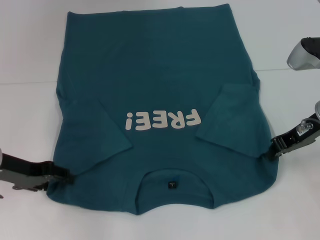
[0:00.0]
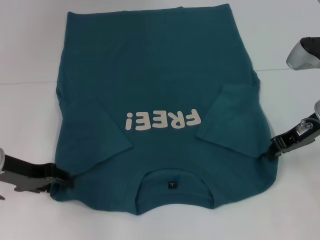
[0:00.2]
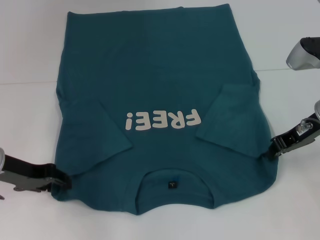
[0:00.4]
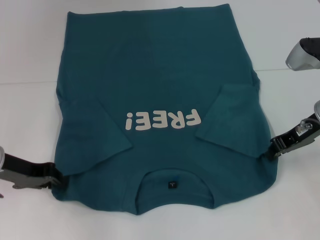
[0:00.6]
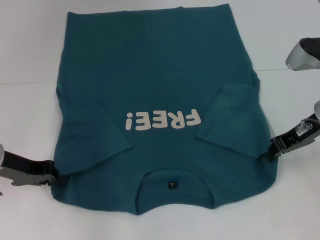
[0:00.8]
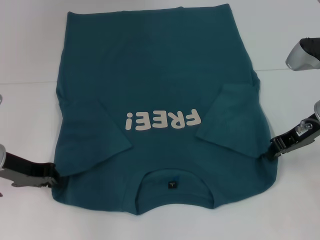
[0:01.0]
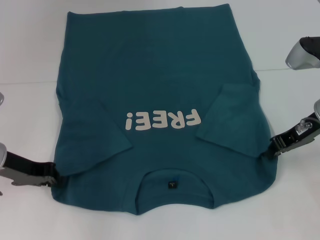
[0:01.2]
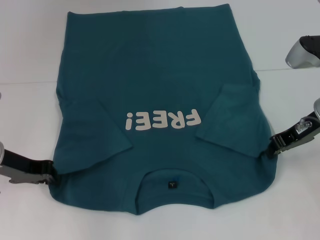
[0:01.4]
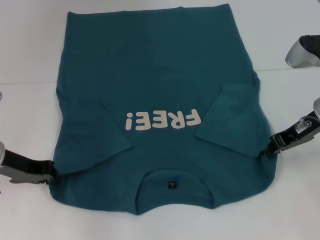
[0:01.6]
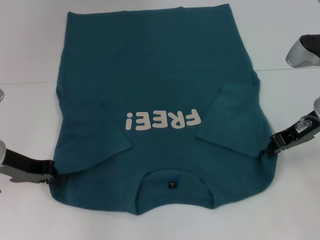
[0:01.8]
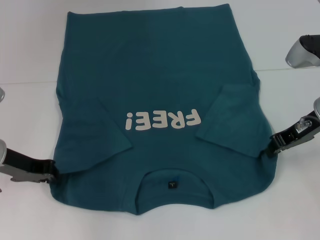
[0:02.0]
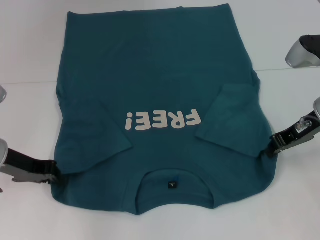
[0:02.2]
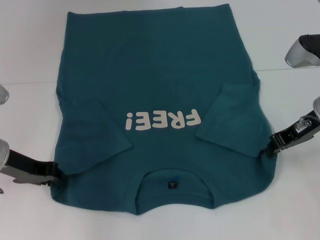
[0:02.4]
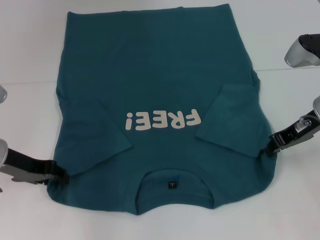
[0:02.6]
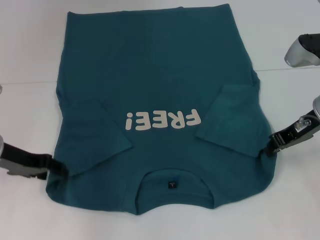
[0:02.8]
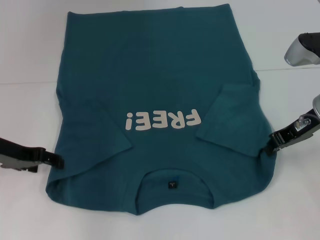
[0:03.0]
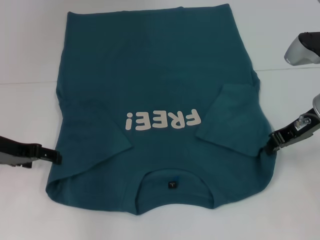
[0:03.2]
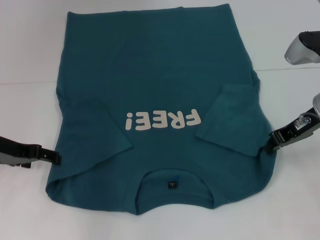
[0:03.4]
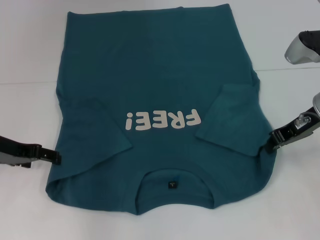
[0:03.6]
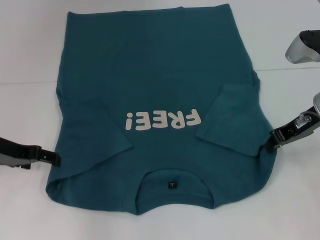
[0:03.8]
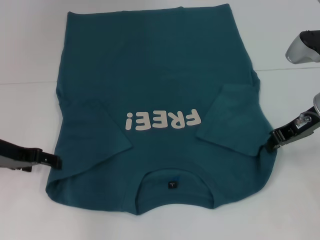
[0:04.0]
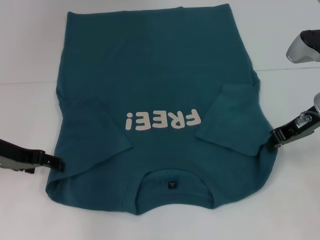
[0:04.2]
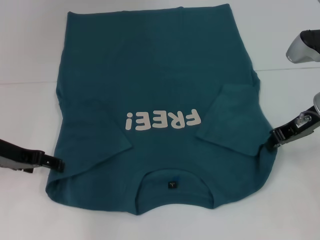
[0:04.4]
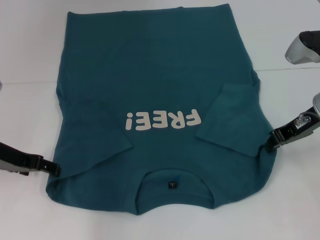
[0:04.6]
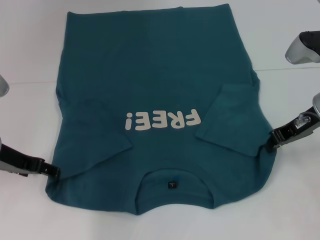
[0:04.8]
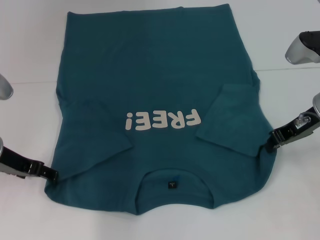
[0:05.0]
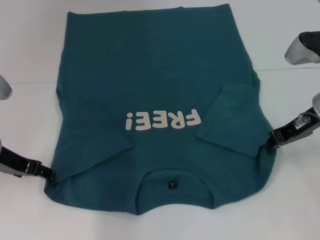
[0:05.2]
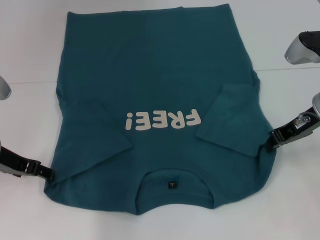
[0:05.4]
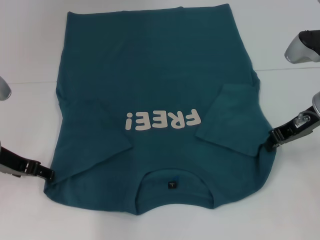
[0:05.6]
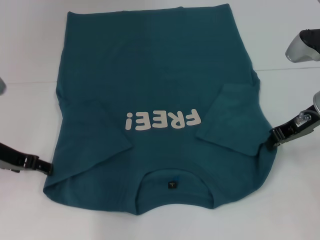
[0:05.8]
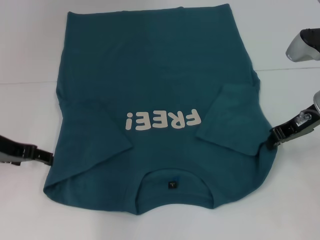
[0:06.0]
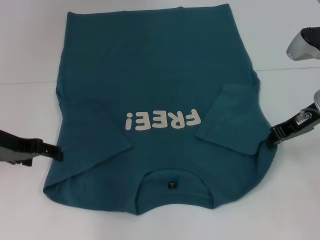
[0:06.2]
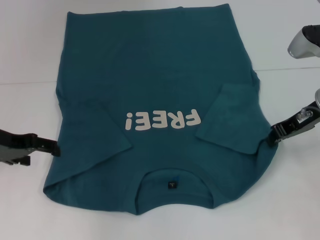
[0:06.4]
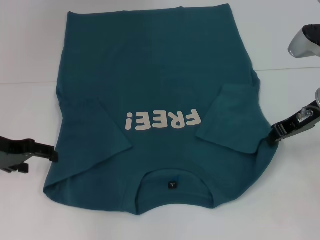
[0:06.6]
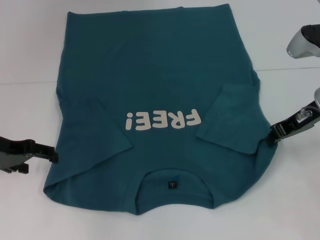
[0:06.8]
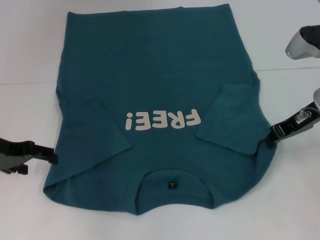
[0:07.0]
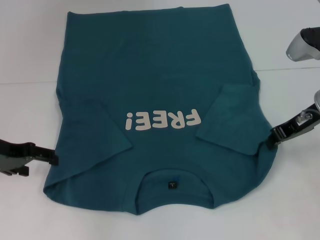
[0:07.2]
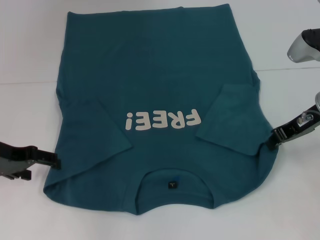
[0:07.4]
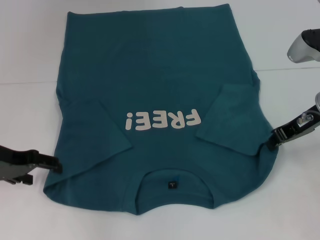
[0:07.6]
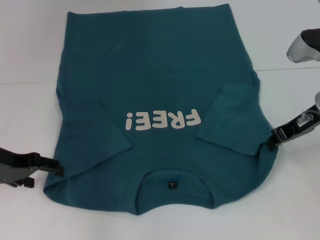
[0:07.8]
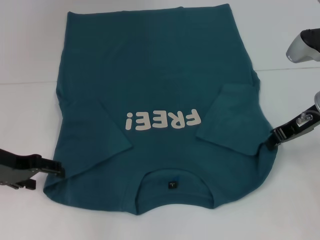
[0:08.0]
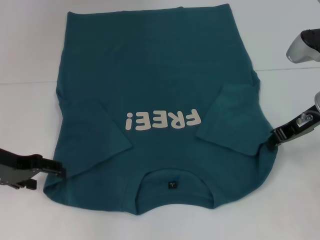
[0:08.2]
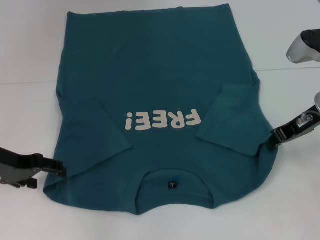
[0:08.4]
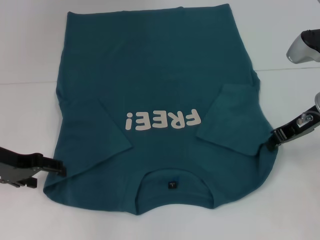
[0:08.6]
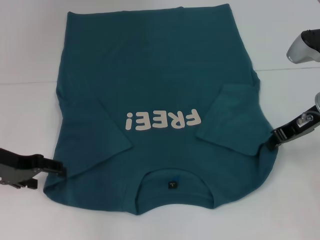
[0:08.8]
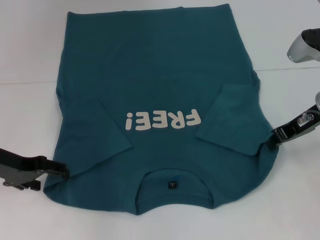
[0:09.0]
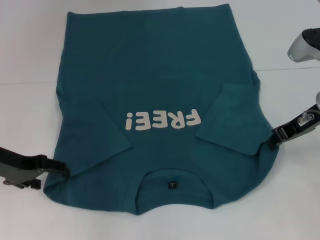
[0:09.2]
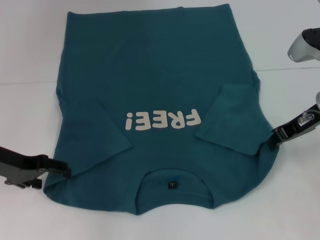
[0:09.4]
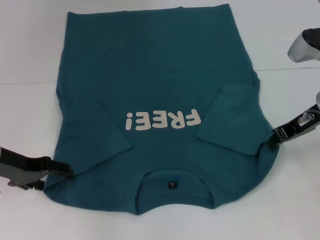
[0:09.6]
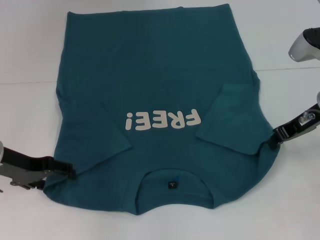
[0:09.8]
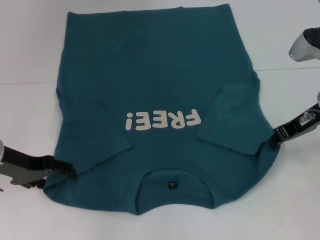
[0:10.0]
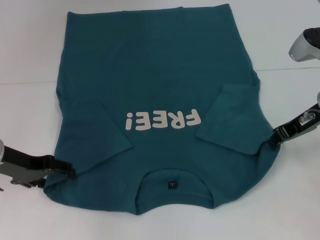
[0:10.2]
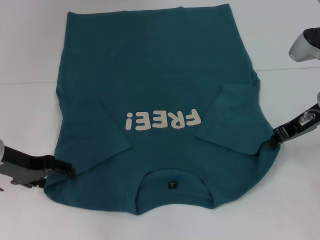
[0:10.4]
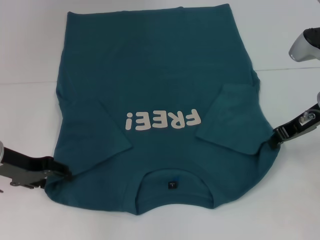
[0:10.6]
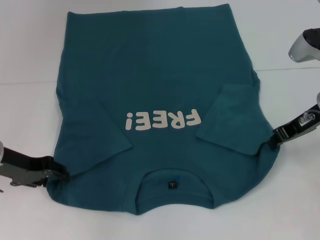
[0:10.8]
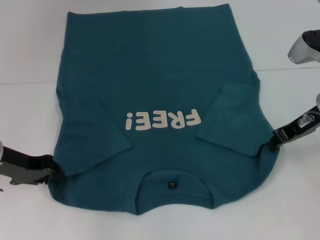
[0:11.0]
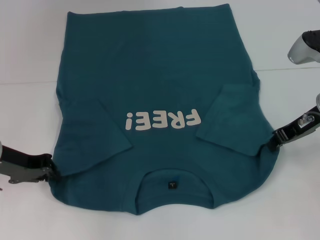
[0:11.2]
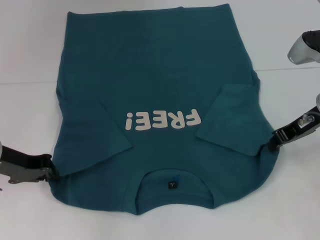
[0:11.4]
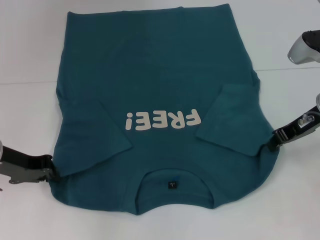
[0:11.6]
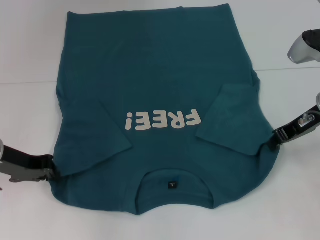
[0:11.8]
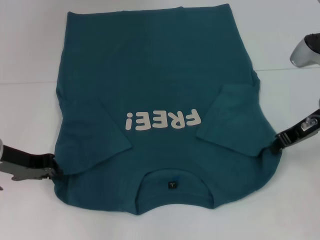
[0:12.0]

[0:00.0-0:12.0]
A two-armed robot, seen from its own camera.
0:00.0 to 0:01.6: The left gripper closes up.
0:01.6 to 0:03.0: The left gripper opens up.
0:03.0 to 0:04.4: The two grippers keep their place.
0:04.4 to 0:06.0: The grippers move only a little.
0:07.6 to 0:09.0: The grippers move only a little.
0:09.0 to 0:10.4: The two grippers keep their place.
0:10.4 to 0:12.0: The left gripper closes up.

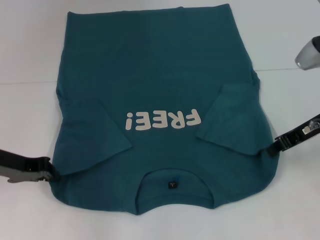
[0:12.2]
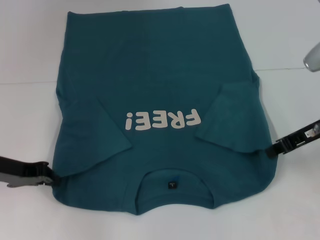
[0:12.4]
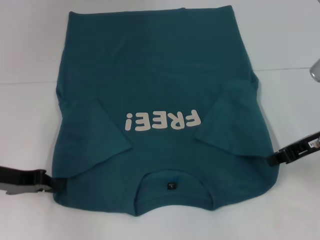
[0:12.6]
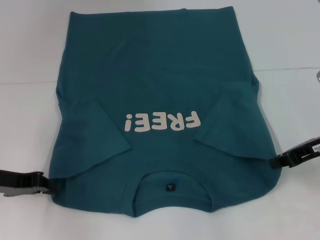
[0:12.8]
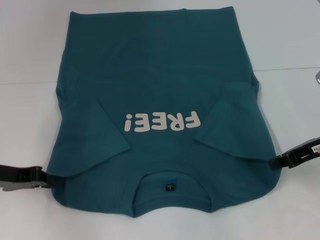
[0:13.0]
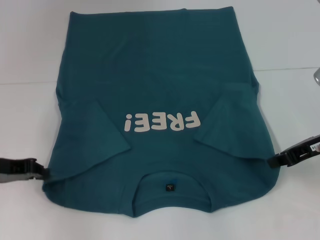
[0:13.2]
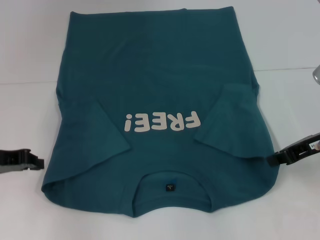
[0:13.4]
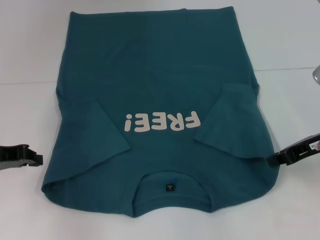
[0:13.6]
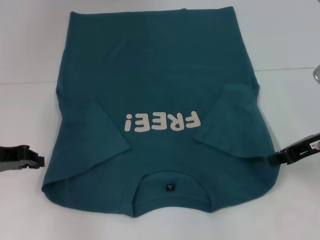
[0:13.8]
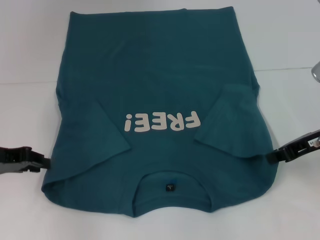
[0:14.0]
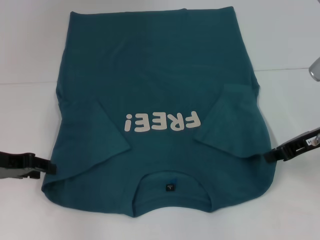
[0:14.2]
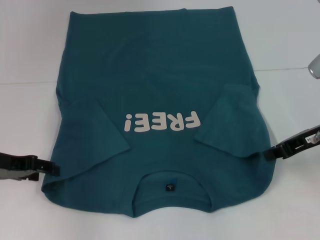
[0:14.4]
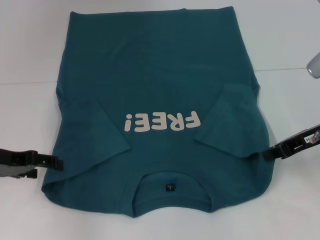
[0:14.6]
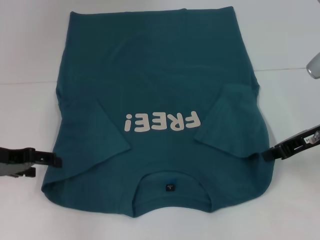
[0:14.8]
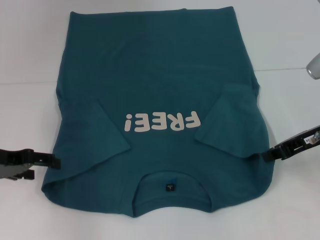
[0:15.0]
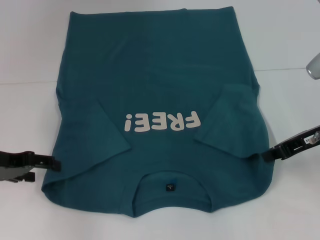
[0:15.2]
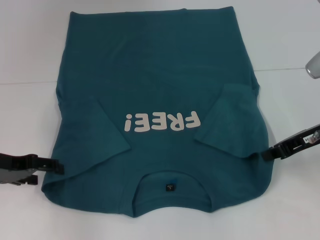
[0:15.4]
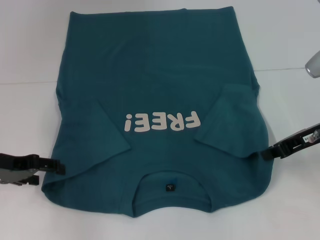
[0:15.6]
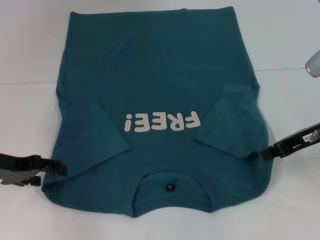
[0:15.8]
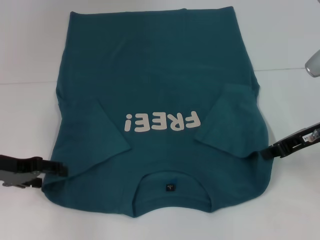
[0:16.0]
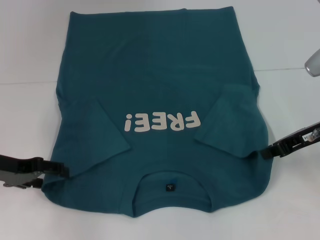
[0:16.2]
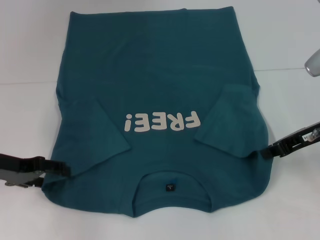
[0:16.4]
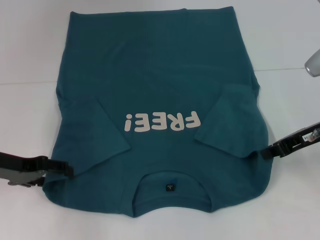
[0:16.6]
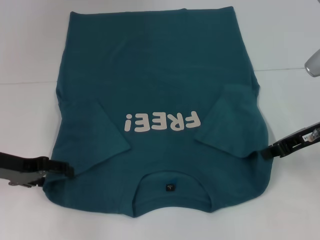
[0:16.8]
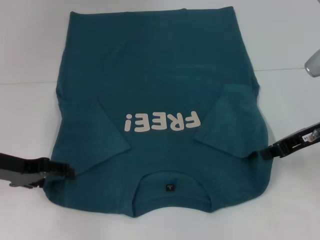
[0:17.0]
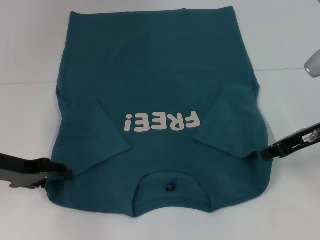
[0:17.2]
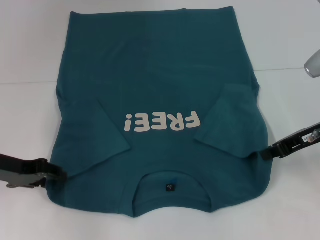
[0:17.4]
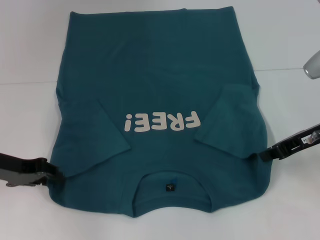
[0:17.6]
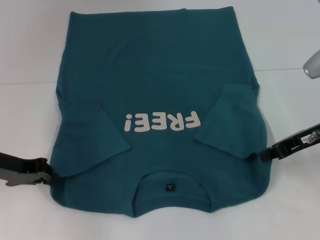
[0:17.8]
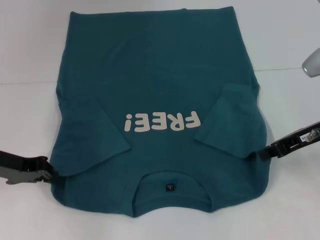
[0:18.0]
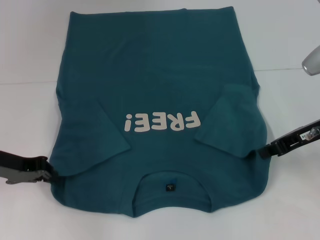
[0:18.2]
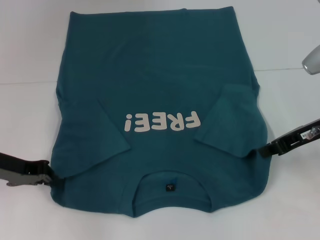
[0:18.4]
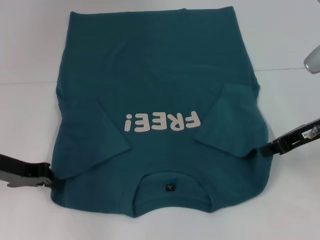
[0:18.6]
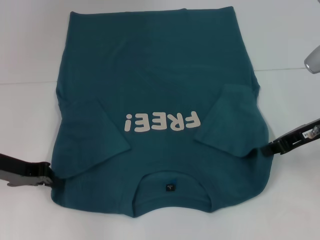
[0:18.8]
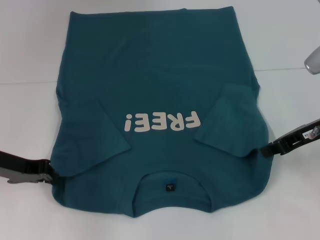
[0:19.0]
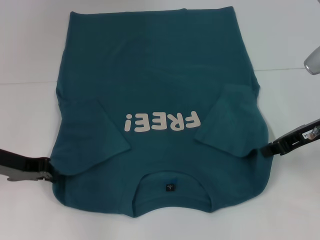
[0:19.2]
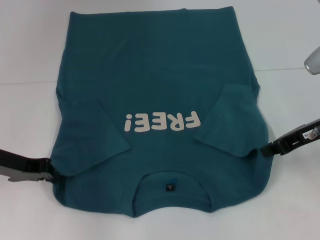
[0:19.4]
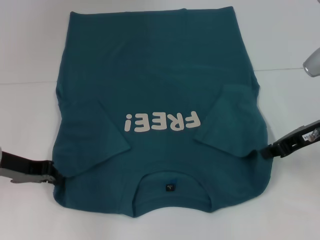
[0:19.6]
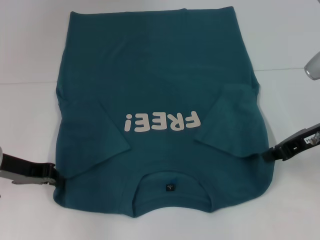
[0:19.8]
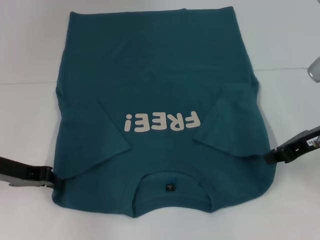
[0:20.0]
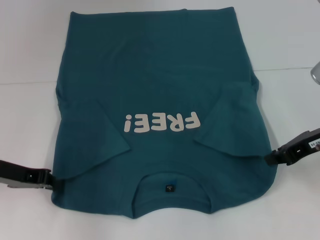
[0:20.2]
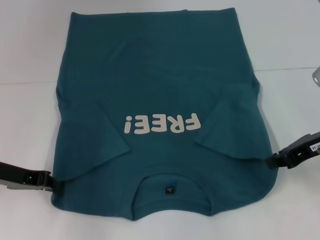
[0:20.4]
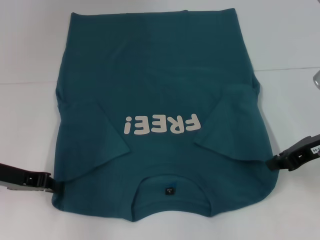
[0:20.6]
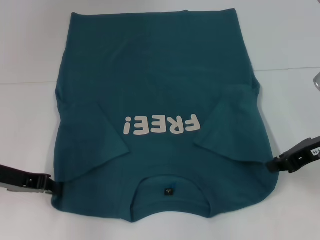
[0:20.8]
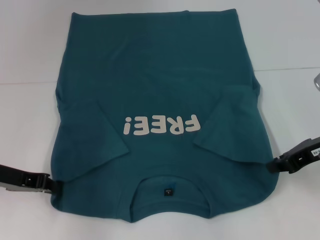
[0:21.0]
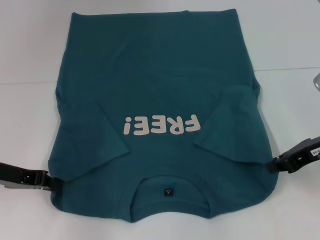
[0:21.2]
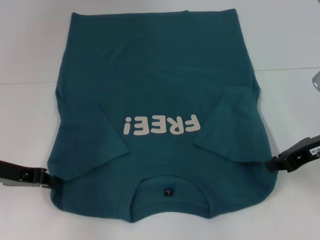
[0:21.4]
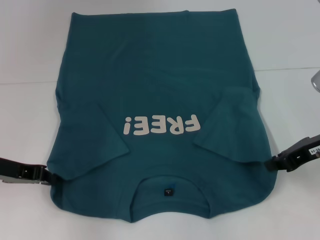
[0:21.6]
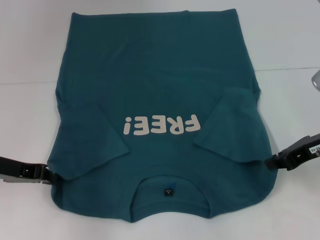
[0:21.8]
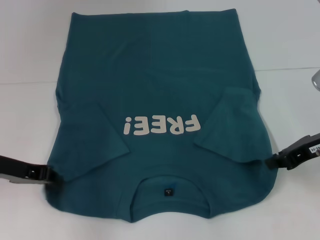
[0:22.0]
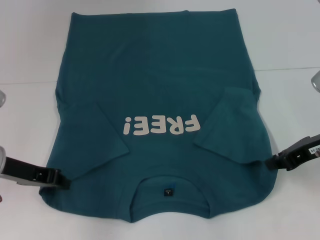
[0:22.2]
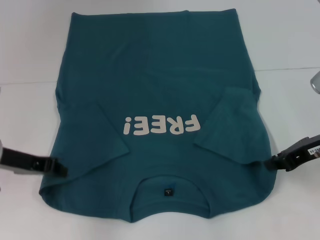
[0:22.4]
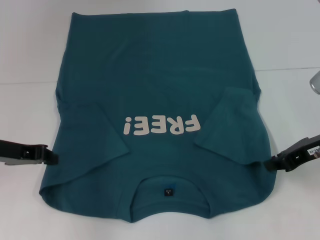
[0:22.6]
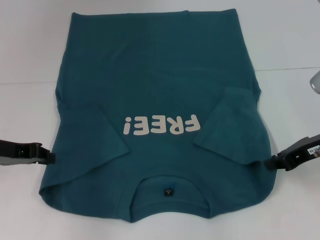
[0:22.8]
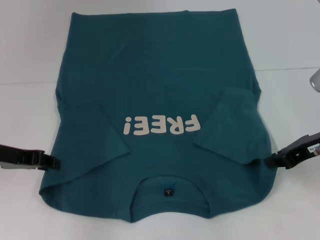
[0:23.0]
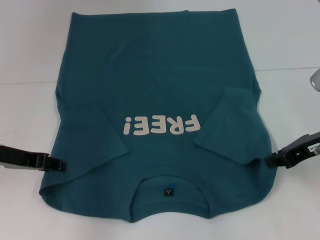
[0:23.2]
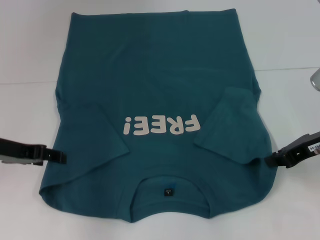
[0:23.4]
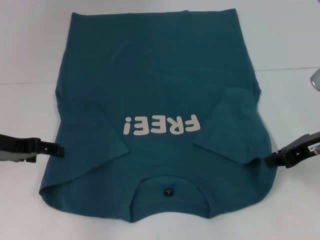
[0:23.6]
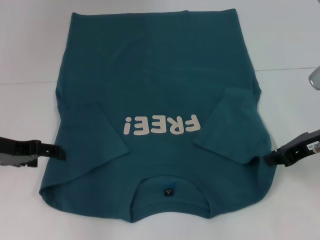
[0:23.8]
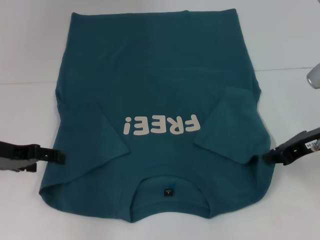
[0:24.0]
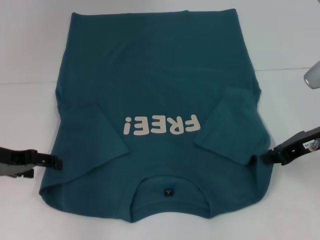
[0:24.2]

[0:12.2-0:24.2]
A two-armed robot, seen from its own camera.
0:12.2 to 0:13.8: There are only small adjustments of the grippers.
0:13.8 to 0:15.2: The left gripper opens up.
0:15.2 to 0:16.6: The grippers stay close to where they were, moving slightly.
0:16.6 to 0:18.2: The left gripper closes its fingers.
0:18.2 to 0:22.6: The grippers move only a little.
0:22.6 to 0:24.2: The left gripper opens its fingers.
